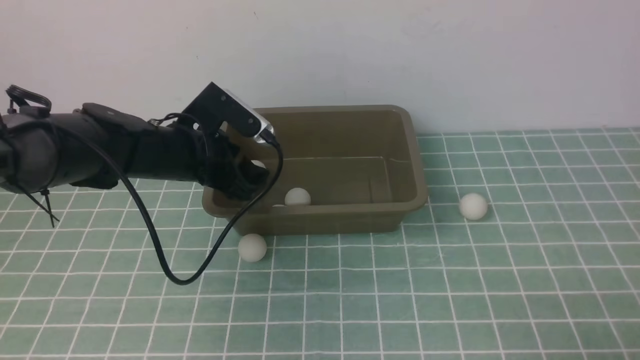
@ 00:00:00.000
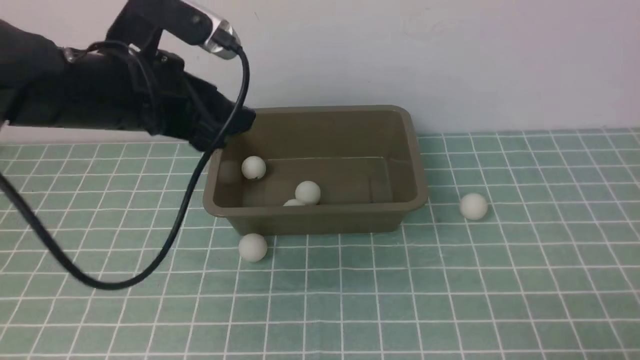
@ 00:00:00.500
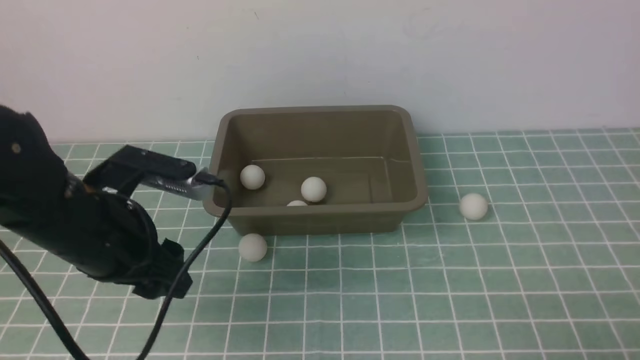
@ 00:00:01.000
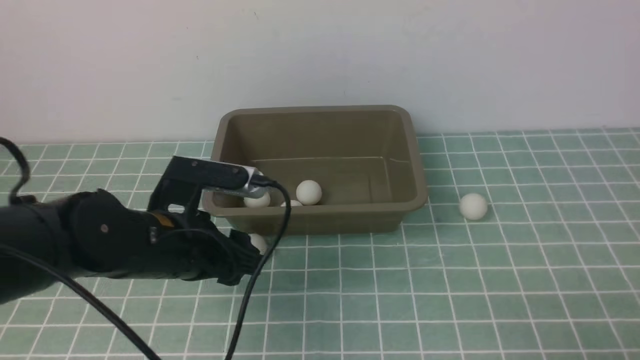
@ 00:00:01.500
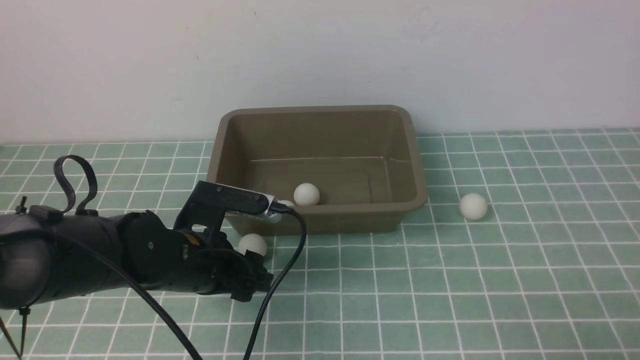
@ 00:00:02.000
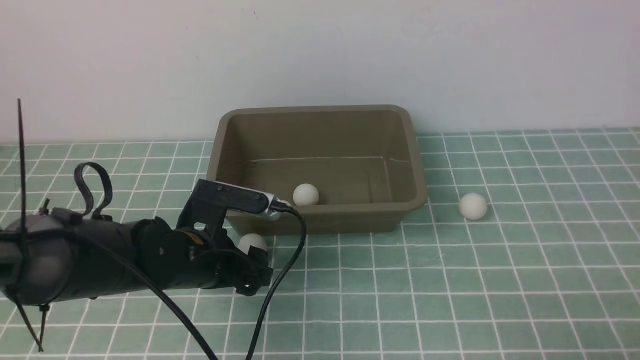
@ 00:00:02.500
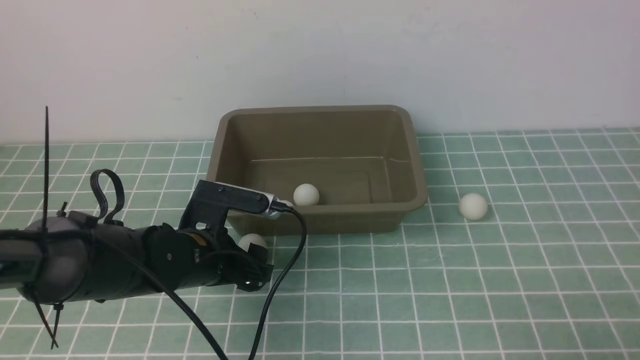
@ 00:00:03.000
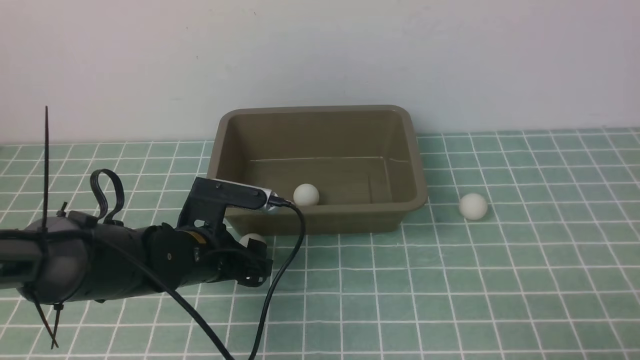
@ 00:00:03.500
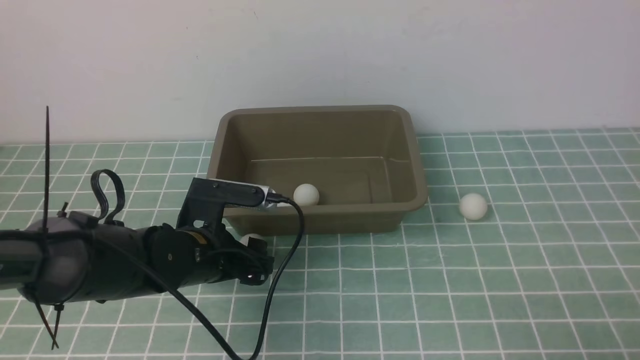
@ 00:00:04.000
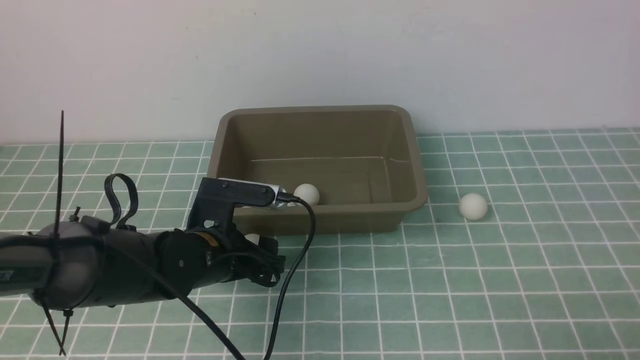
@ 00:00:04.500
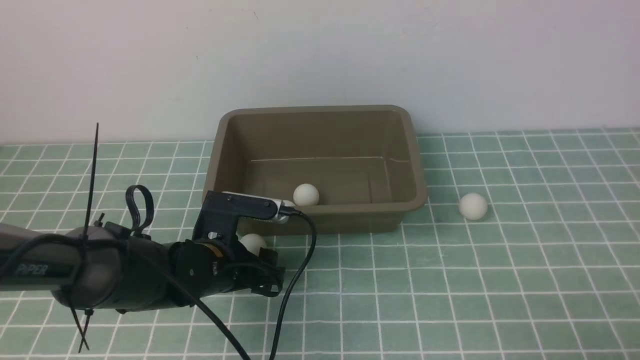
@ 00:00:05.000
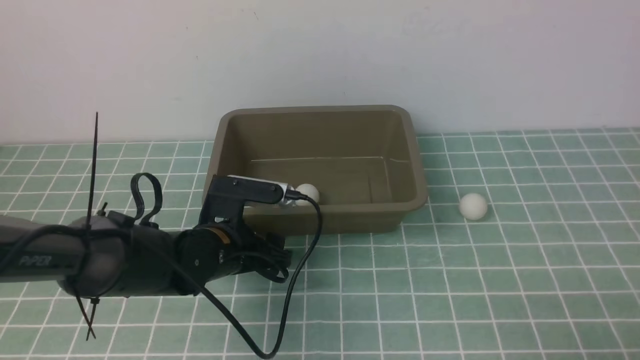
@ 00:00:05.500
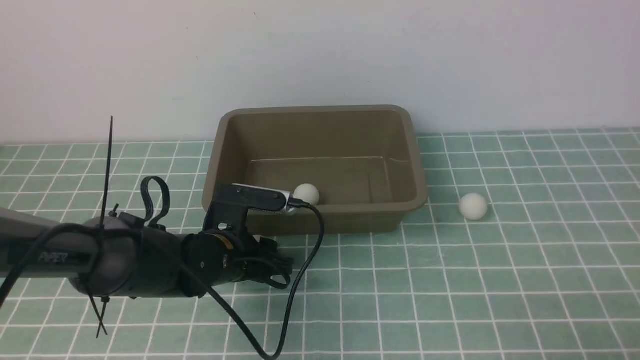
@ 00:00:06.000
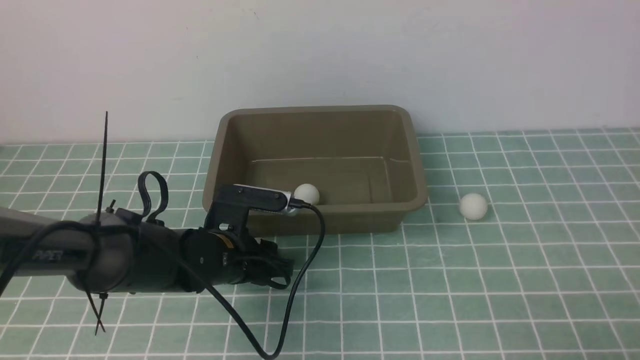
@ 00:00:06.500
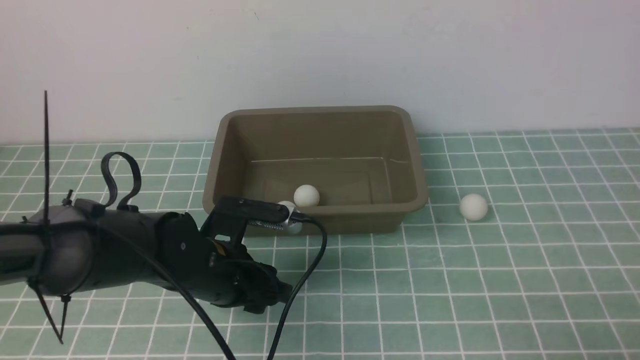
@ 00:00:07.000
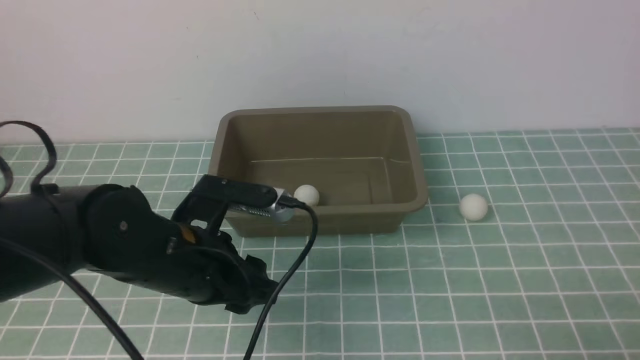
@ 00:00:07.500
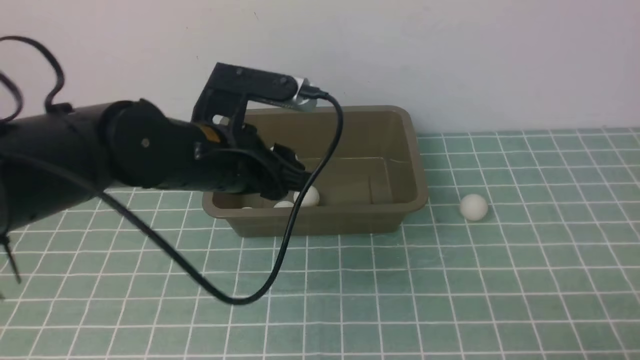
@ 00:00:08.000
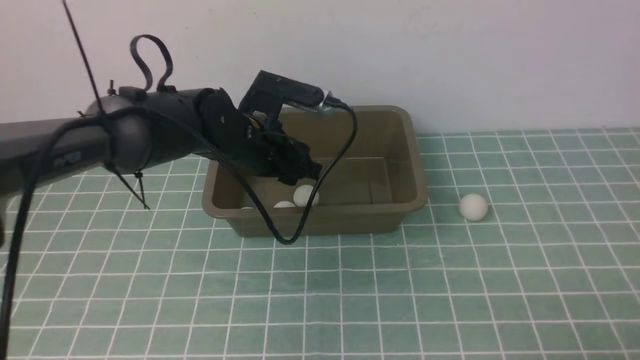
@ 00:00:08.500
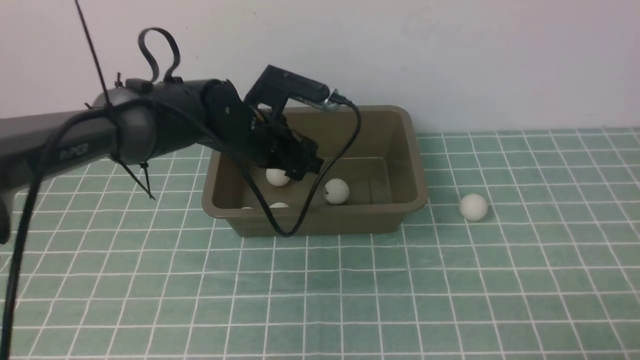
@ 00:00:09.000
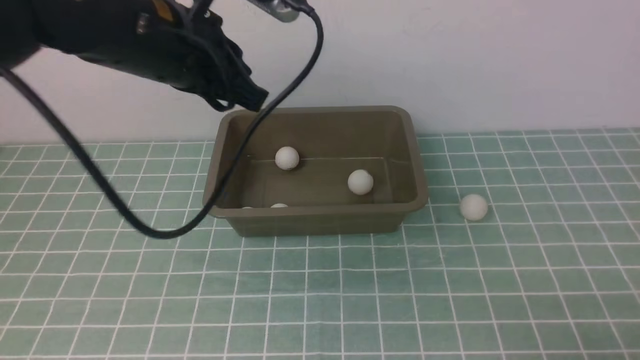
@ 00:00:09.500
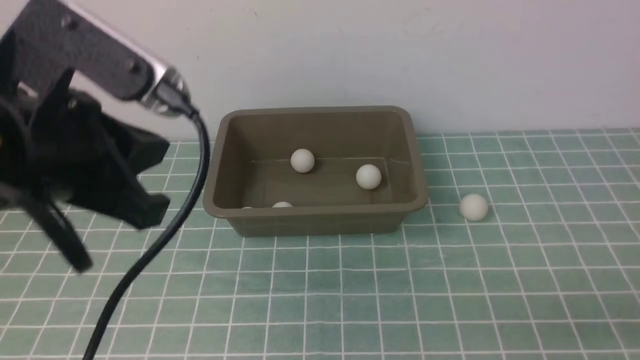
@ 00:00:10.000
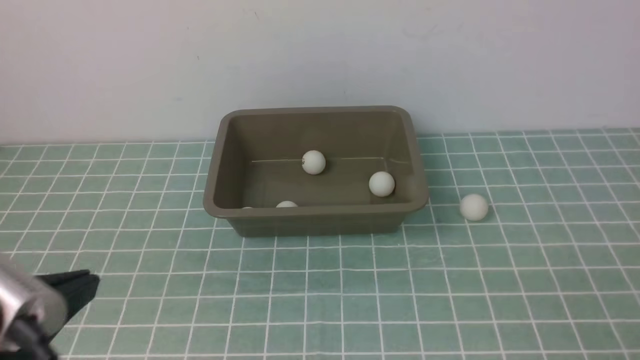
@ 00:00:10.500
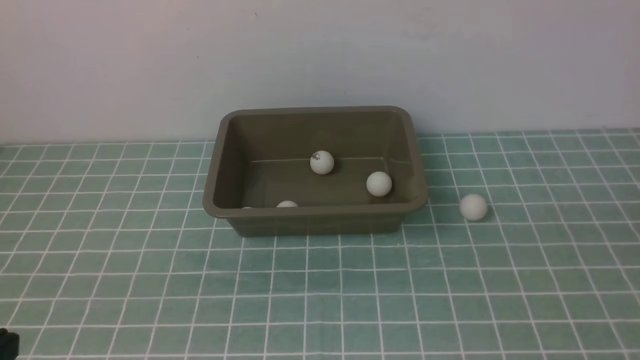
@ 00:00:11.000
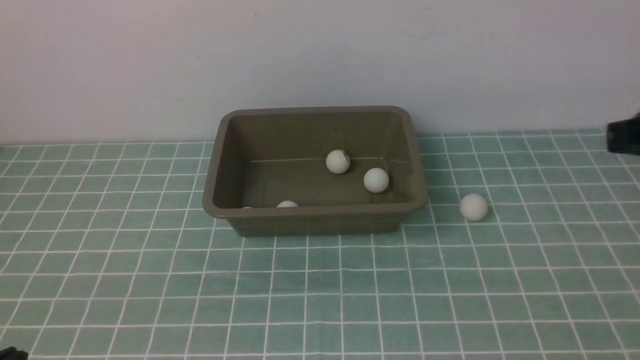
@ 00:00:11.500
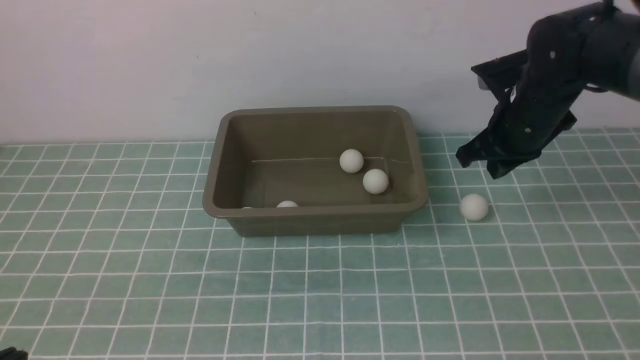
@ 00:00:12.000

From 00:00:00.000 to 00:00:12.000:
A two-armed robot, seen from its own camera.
Step, from 00:00:00.500 to 00:00:07.500: use the left arm to clamp the table tennis ball closest to it.
Step, from 00:00:08.000 to 00:00:09.000: use the left arm to put the table tennis ball into the box.
From 00:00:00.000 to 00:00:02.000: The left gripper goes approximately 10 cm backward, and moves about 10 cm upward and comes back.
From 00:00:02.000 to 00:00:04.000: There are only small adjustments of the grippers.
From 00:00:04.000 to 00:00:06.000: The left gripper closes its fingers.
From 00:00:06.000 to 00:00:08.000: The left gripper shifts about 15 cm upward.
From 00:00:08.000 to 00:00:10.000: The left gripper heads backward, upward and to the left, covering about 20 cm, and closes up.
From 00:00:10.000 to 00:00:12.000: The right gripper moves forward, about 35 cm. The left gripper travels backward, downward and to the left by approximately 20 cm.

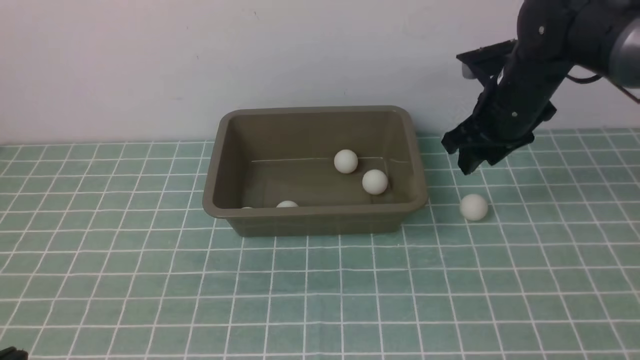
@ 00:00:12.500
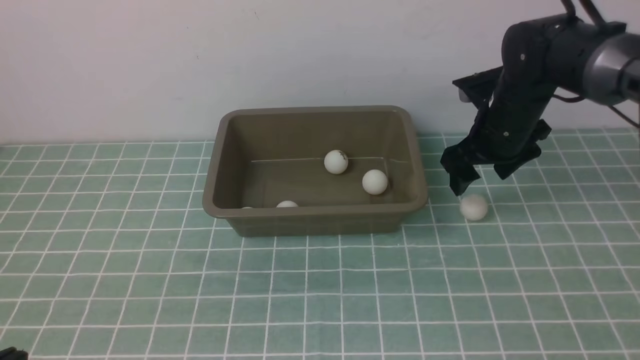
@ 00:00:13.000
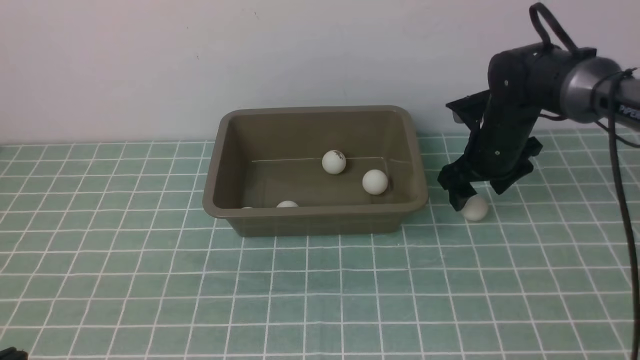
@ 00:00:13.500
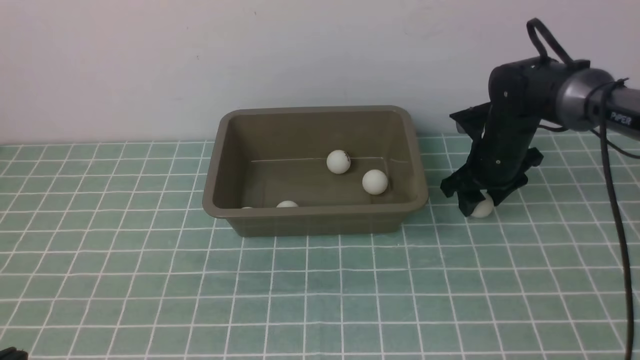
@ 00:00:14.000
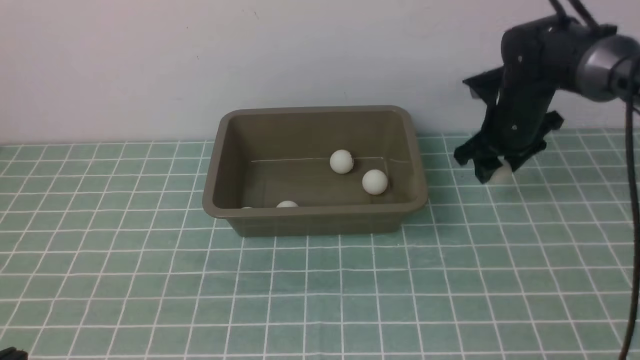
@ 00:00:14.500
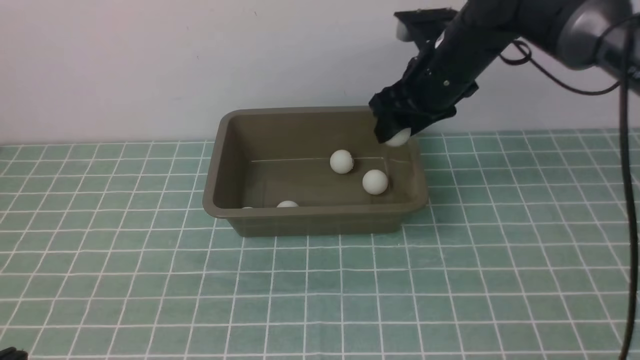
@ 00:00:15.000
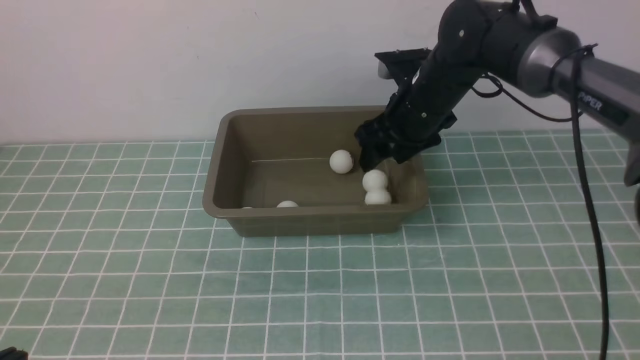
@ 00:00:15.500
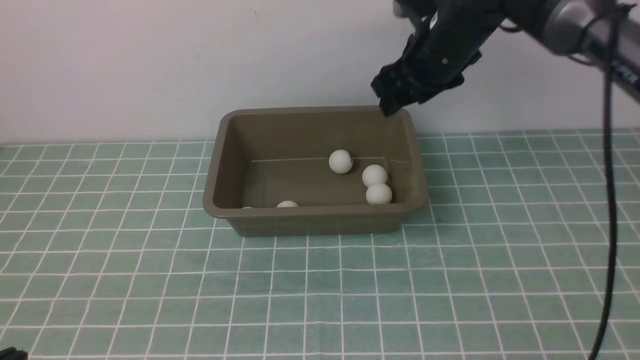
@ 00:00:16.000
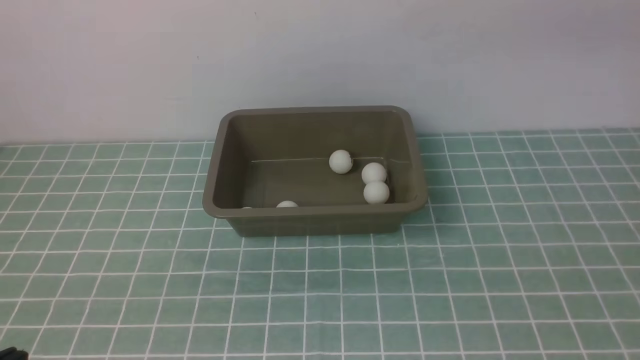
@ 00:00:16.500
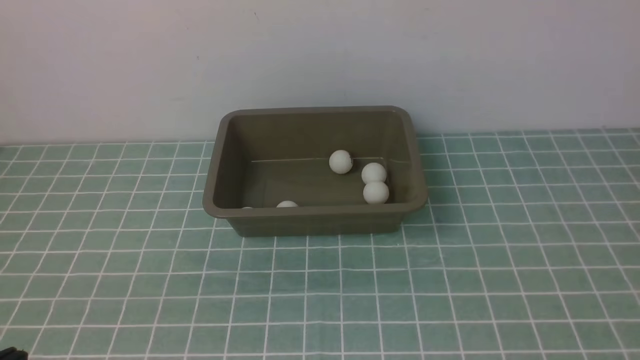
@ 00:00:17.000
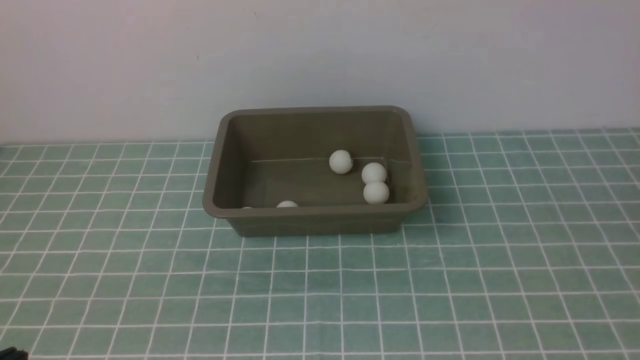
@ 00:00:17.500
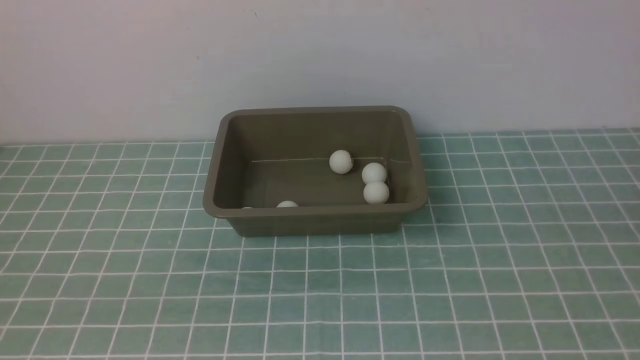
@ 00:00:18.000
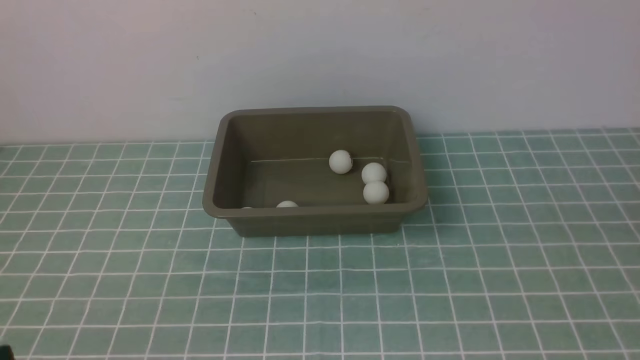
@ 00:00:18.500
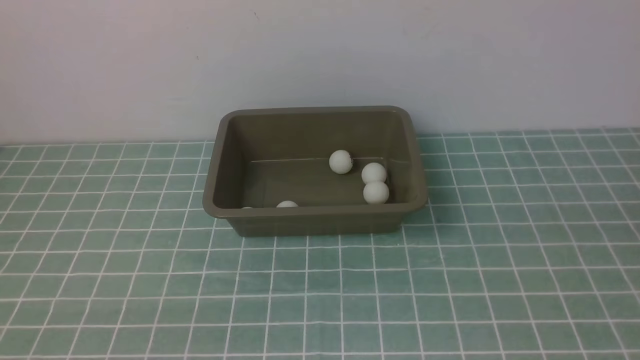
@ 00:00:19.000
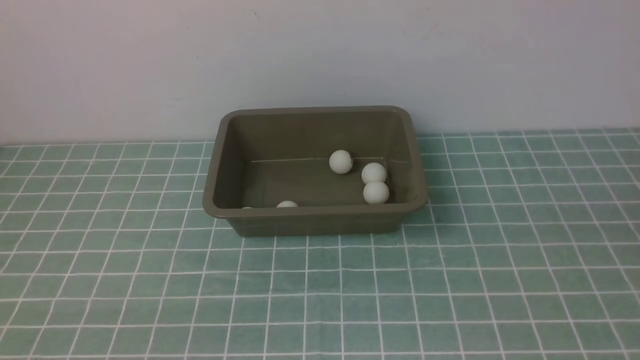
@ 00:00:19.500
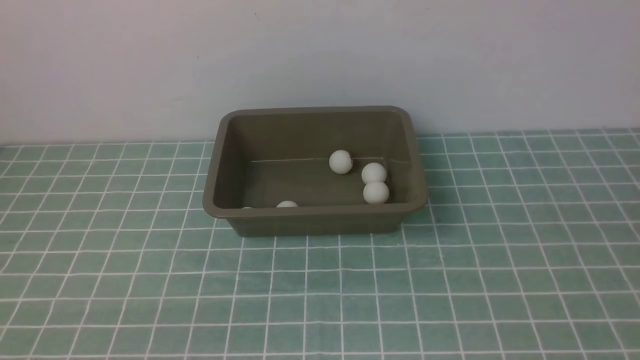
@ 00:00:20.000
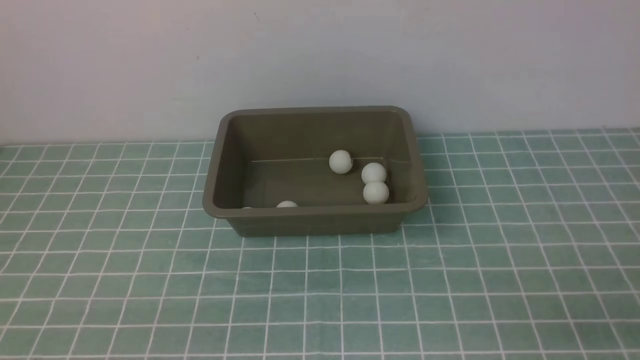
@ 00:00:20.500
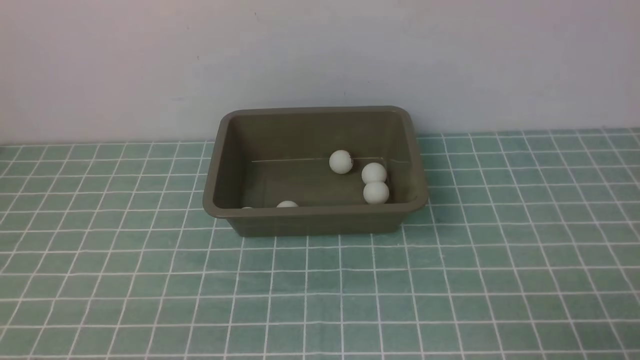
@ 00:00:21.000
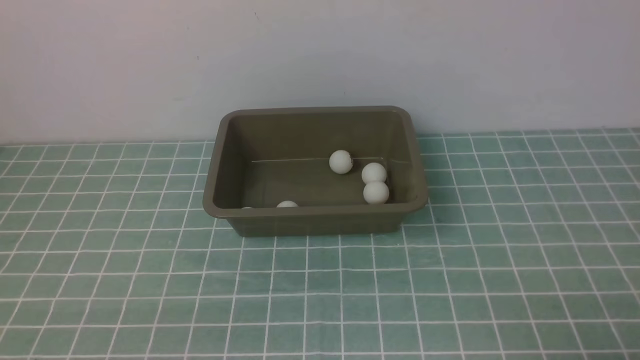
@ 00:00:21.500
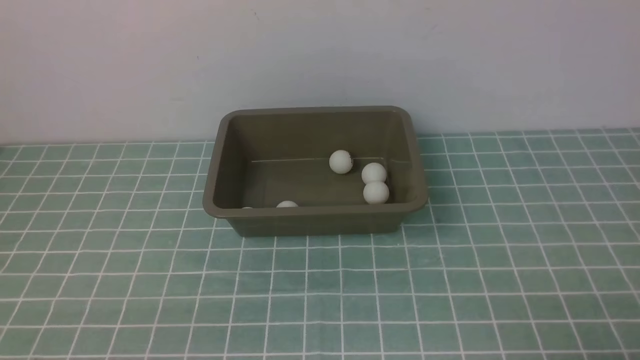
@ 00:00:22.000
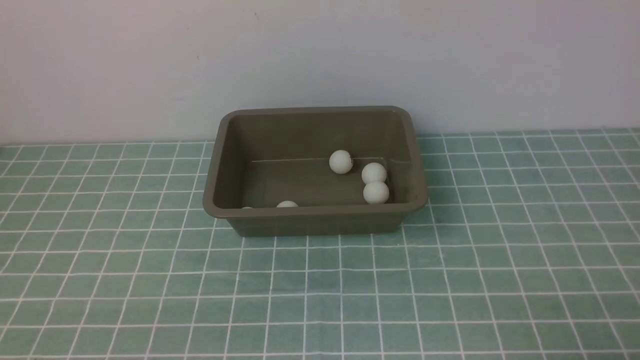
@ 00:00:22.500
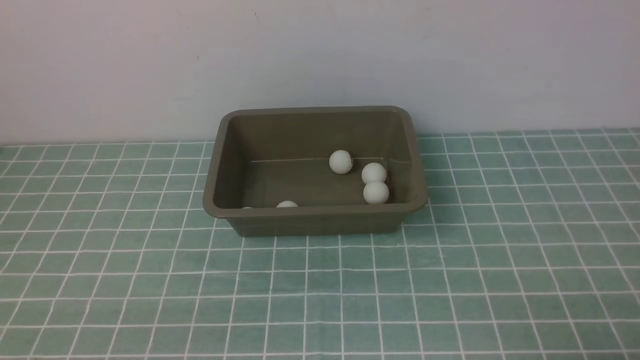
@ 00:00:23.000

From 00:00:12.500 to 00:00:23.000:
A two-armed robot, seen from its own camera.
Step, from 00:00:12.500 to 00:00:14.500: use the right arm to clamp the table tennis ball closest to it.
Step, from 00:00:15.000 to 00:00:15.500: use the right arm to put the table tennis ball into the box.
From 00:00:12.500 to 00:00:14.500: The right gripper moves roughly 10 cm downward and comes back.
From 00:00:14.500 to 00:00:16.500: The right gripper shifts about 35 cm upward and backward, and closes.
From 00:00:21.000 to 00:00:23.000: Both grippers stay about where they are.